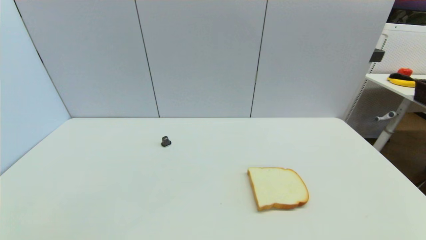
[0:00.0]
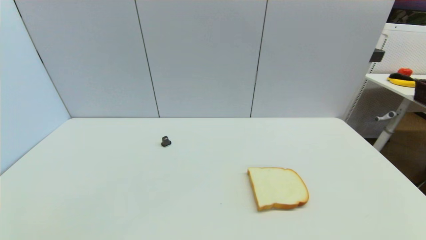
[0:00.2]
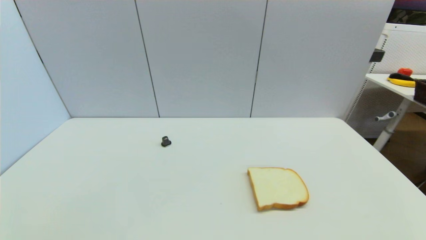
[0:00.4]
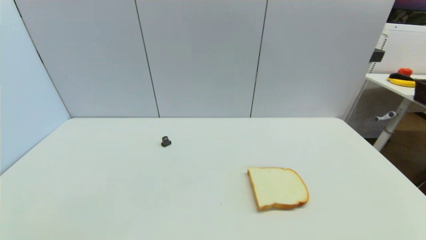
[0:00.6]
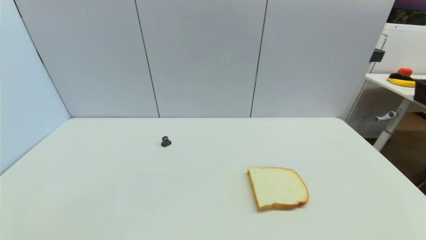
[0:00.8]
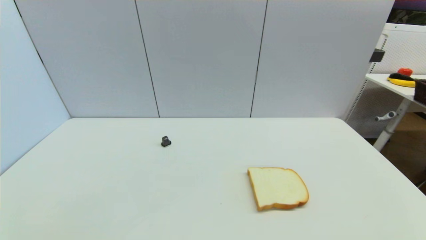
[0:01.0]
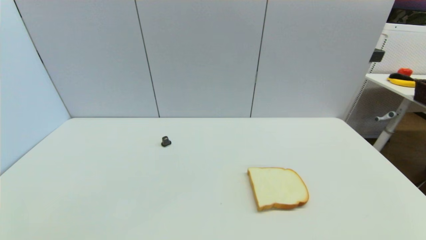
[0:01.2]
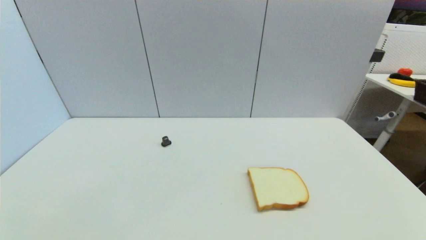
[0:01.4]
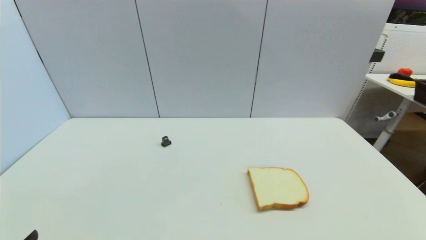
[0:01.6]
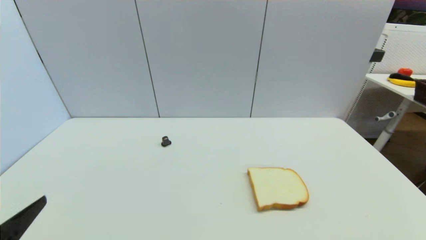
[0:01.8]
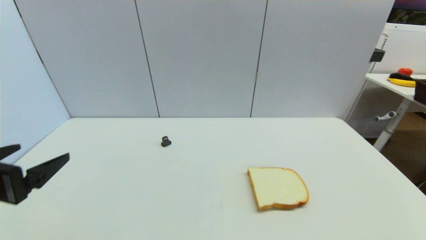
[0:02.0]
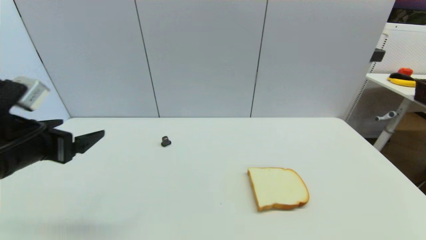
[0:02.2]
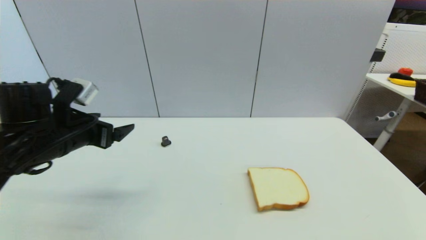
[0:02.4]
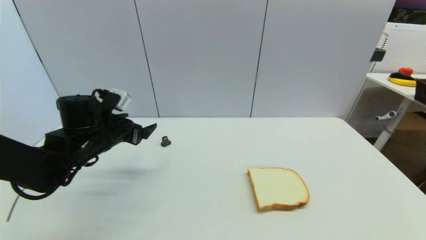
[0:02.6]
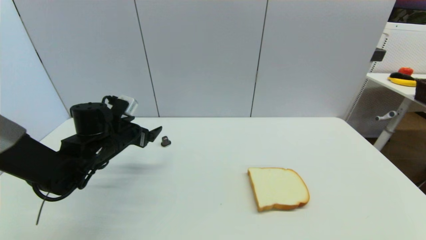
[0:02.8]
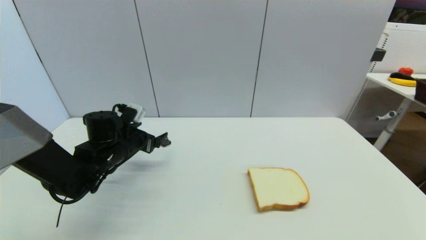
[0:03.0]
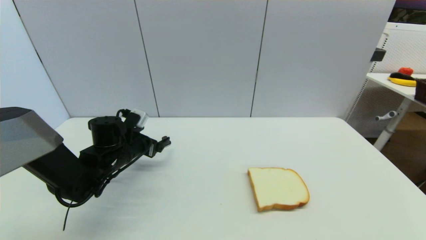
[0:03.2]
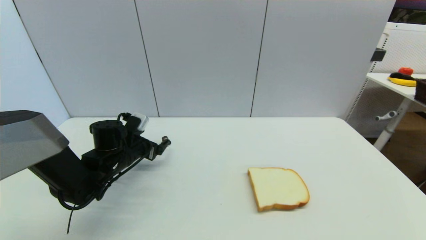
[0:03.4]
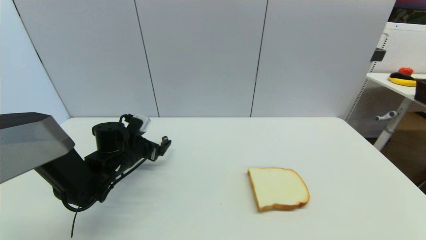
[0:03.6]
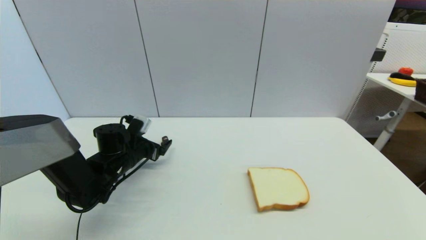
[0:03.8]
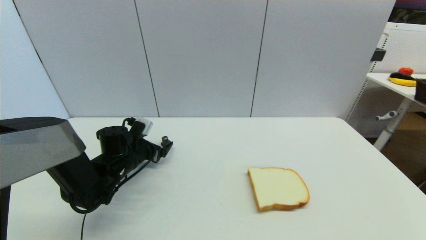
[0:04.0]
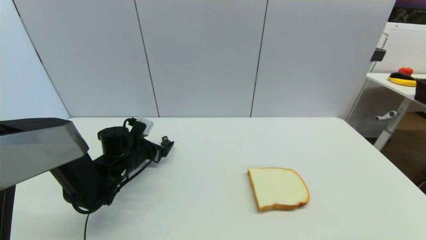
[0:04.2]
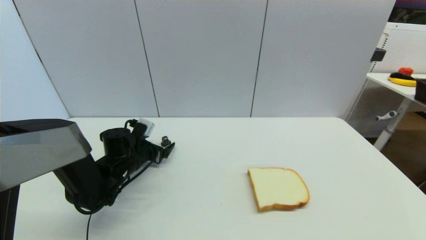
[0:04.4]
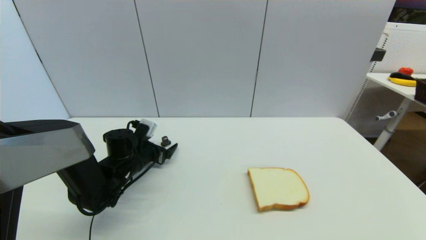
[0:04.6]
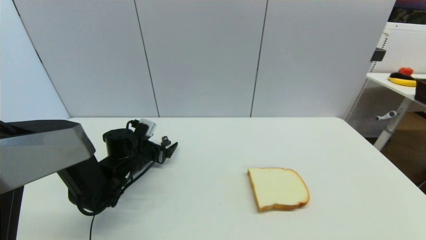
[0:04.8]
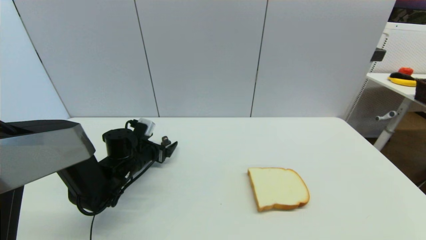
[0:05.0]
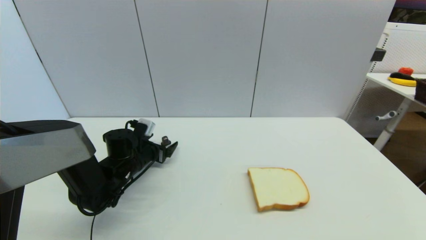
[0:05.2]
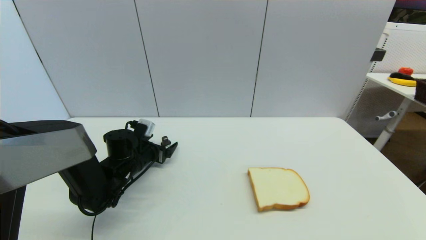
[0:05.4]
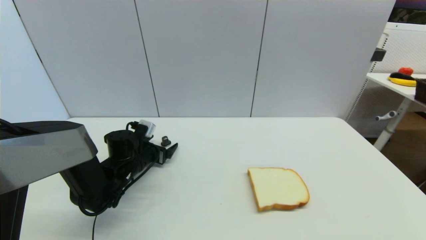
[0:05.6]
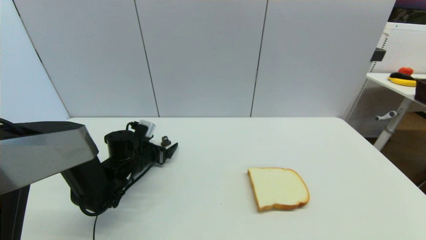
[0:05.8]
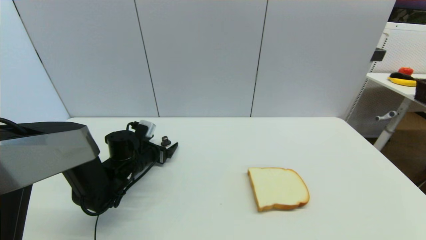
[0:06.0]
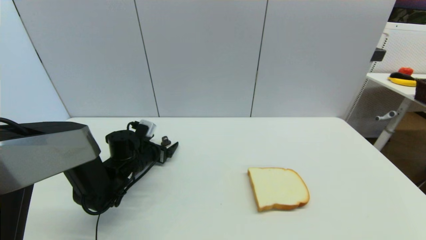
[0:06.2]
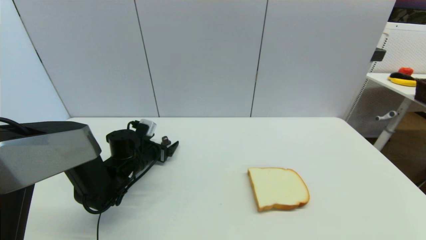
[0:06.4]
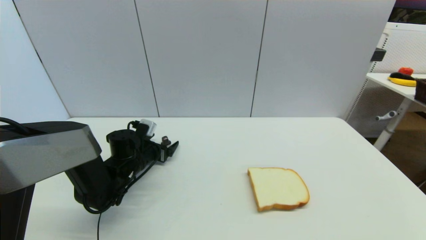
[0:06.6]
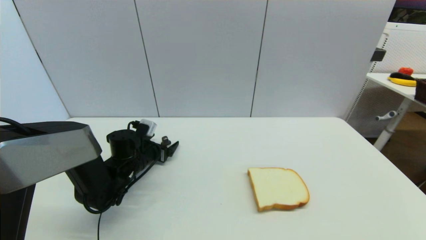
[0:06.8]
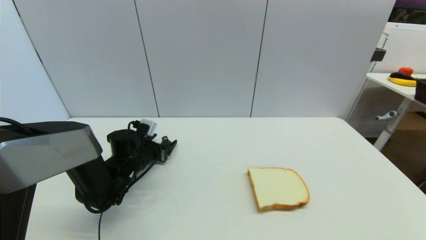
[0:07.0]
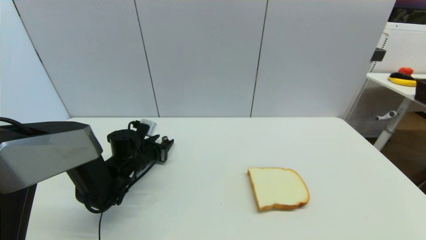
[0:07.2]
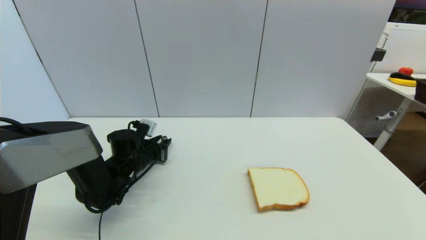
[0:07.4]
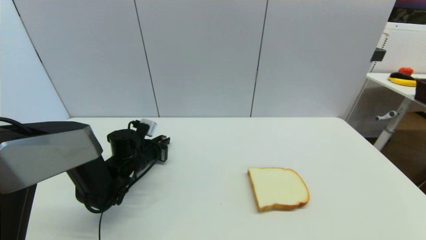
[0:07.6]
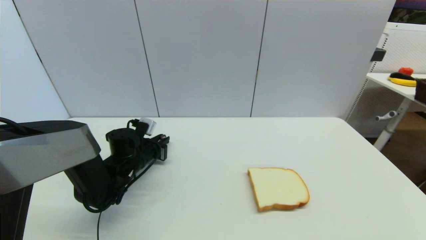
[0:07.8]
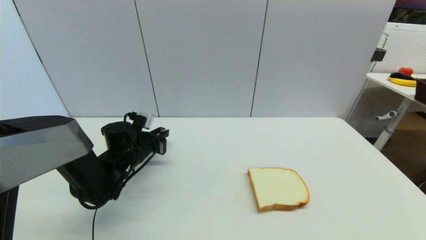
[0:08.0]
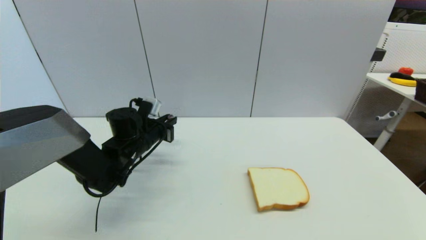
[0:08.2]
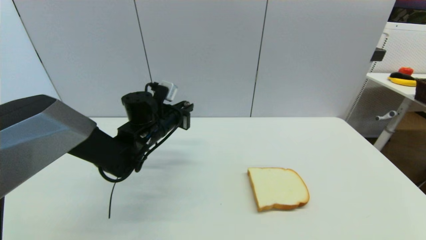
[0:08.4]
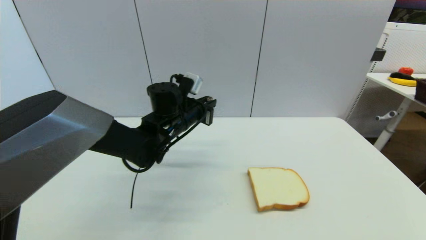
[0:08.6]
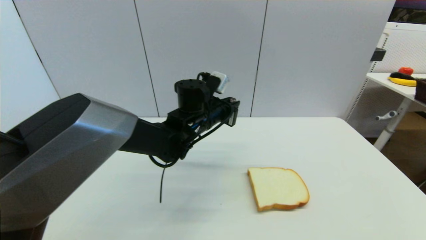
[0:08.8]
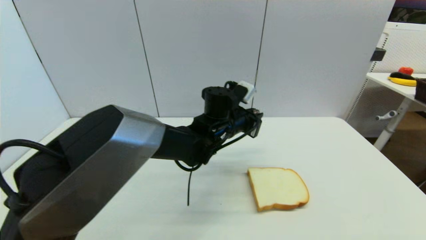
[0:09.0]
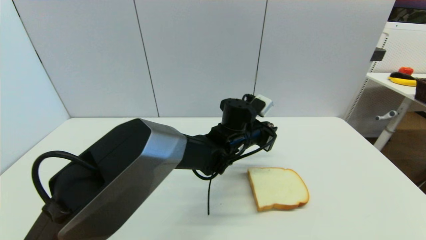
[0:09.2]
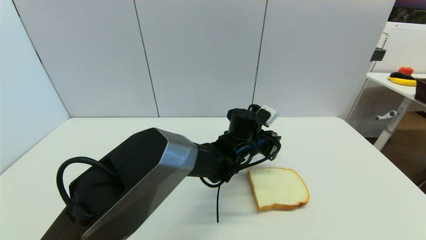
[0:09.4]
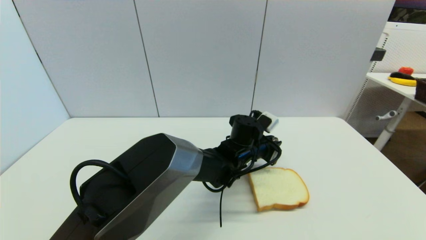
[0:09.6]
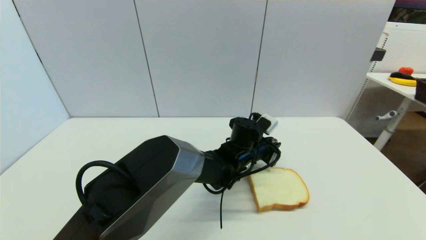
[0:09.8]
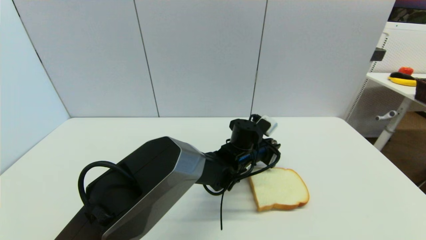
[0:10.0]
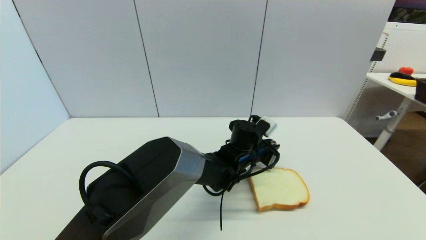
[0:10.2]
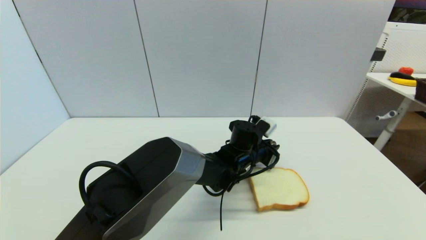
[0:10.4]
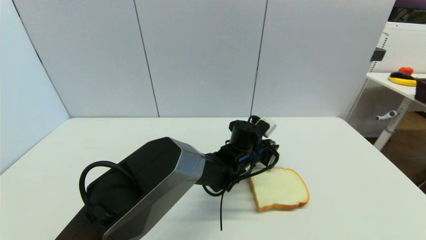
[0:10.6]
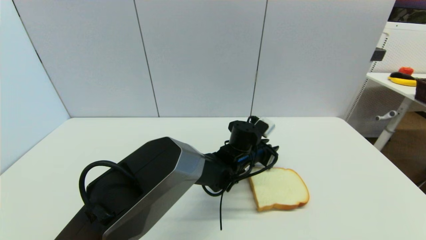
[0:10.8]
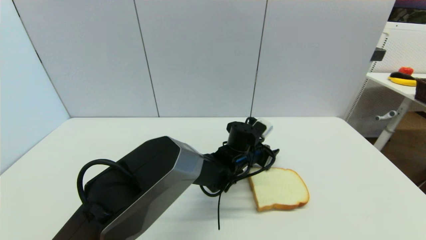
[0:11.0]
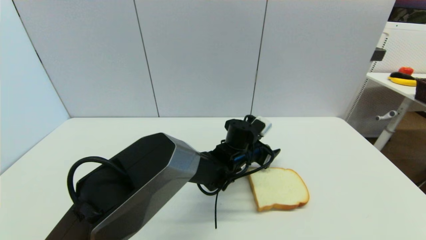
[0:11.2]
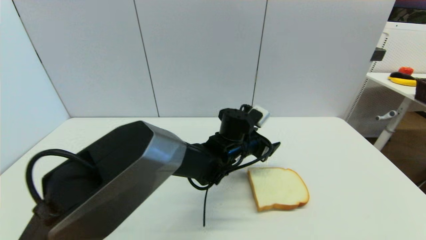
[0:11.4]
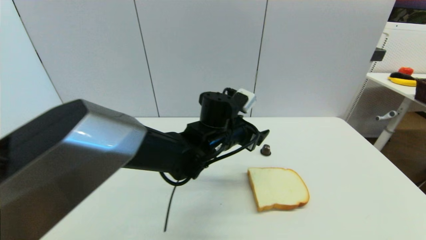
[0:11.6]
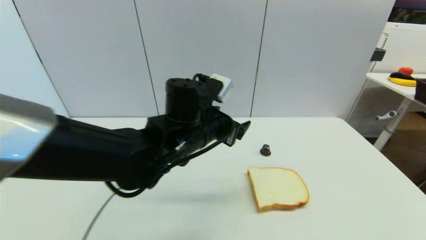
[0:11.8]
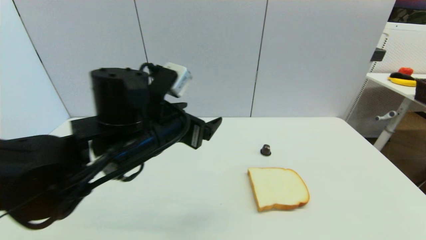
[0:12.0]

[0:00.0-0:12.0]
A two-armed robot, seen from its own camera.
Step, 0:01.6 to 0:07.6: Grasp the coffee capsule with left gripper.
Step, 0:07.8 to 0:11.0: Place the coffee capsule on the table with left gripper.
0:01.6 to 0:03.0: The left gripper shifts some 30 cm forward.
0:03.0 to 0:04.4: The left gripper ends up roughly 5 cm from where it was.
0:04.4 to 0:06.0: Both grippers stay put.
0:06.0 to 0:07.6: The left gripper closes its fingers.
0:07.6 to 0:09.0: The left gripper is displaced to the right and upward by some 25 cm.
0:09.0 to 0:10.4: The left gripper goes some 10 cm downward.
0:10.4 to 0:12.0: The left gripper moves to the left, upward and backward, approximately 30 cm, and opens up.

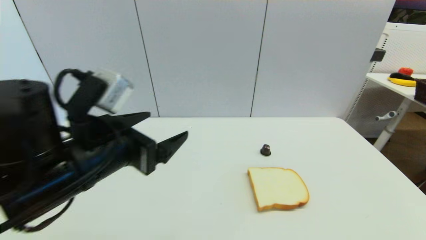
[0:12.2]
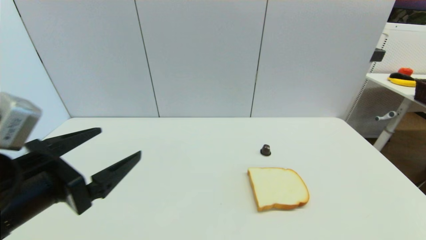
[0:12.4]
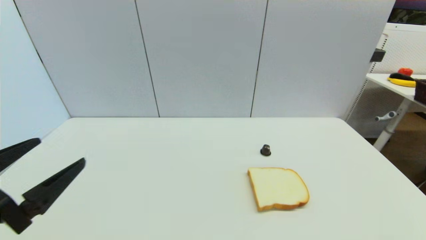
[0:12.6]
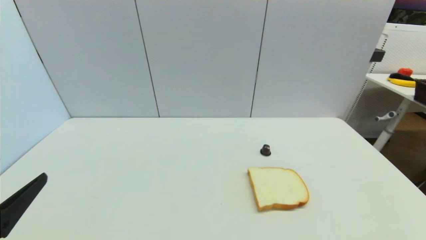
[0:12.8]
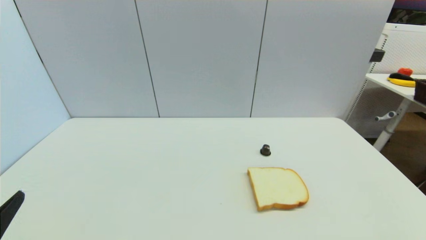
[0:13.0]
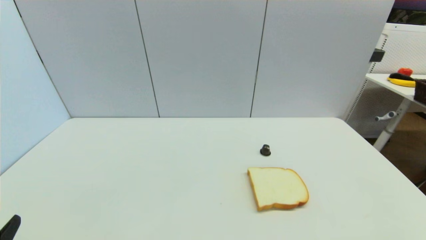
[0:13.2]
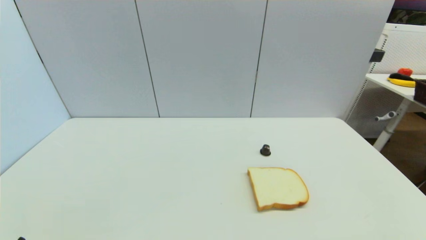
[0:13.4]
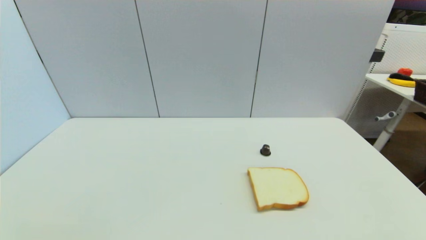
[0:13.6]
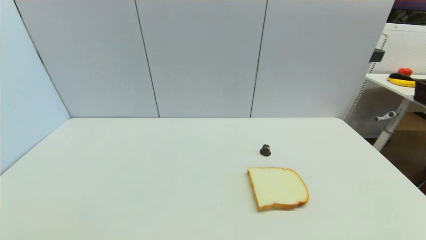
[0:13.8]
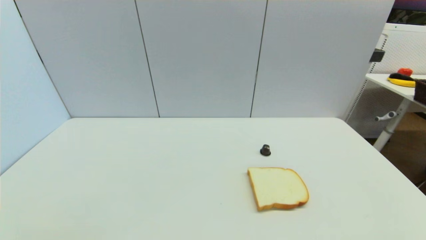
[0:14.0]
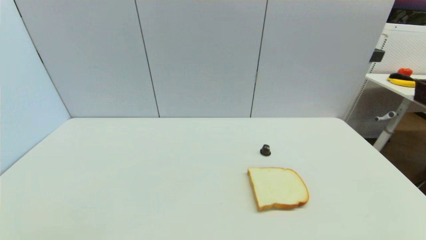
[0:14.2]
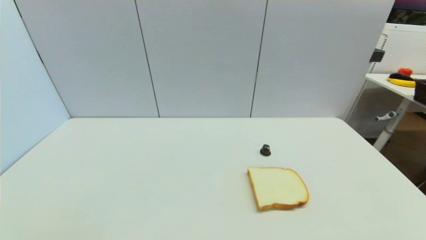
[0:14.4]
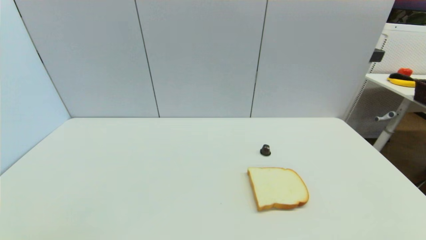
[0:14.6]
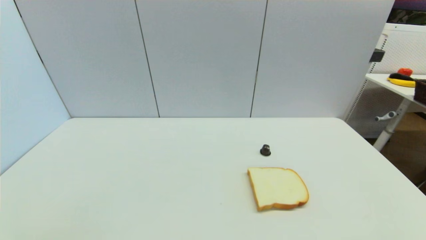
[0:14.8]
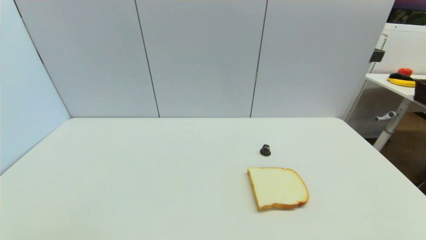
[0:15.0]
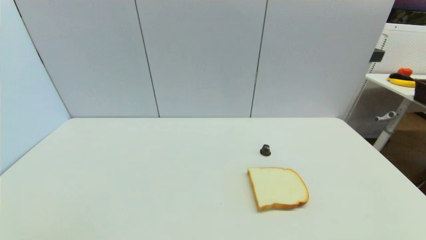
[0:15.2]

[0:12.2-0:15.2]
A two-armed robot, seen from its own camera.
0:12.2 to 0:13.8: The left gripper is displaced backward, downward and to the left by approximately 25 cm.
0:13.8 to 0:15.2: Both grippers stay about where they are.

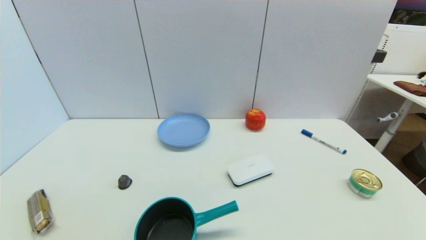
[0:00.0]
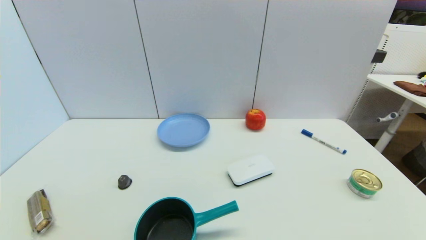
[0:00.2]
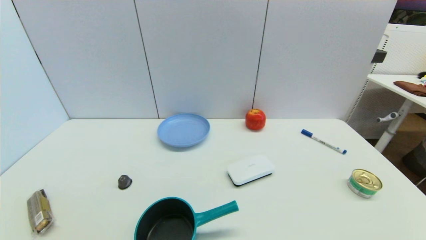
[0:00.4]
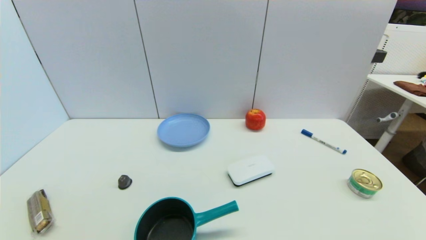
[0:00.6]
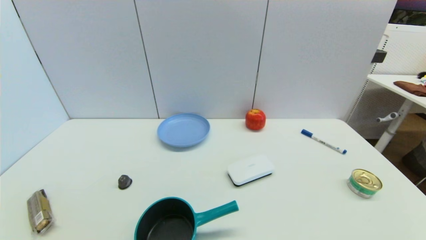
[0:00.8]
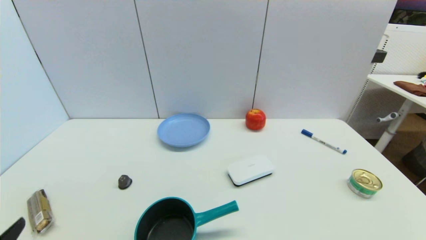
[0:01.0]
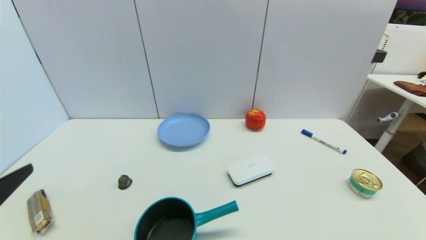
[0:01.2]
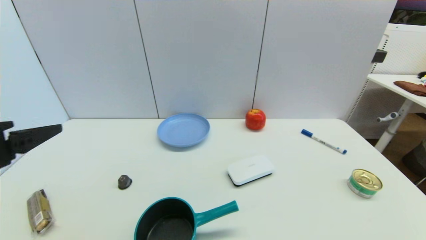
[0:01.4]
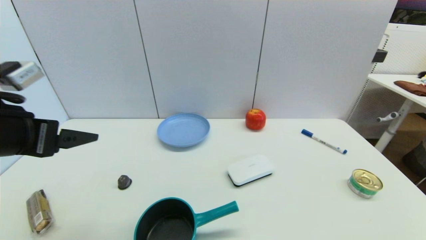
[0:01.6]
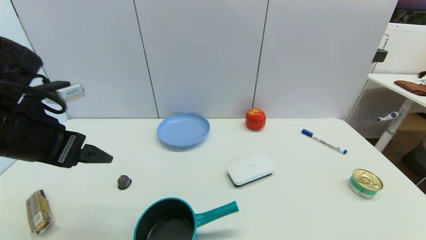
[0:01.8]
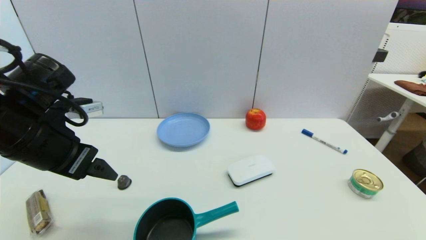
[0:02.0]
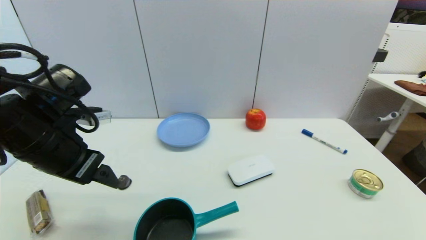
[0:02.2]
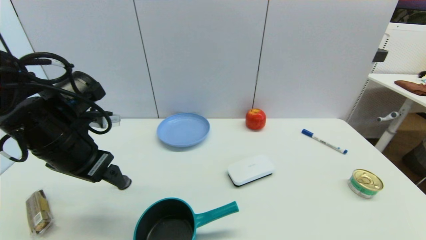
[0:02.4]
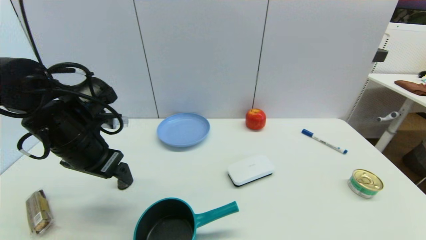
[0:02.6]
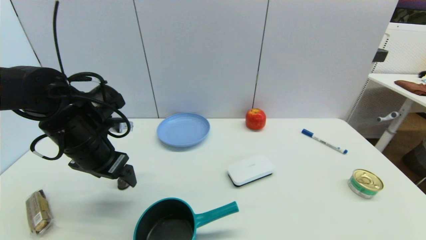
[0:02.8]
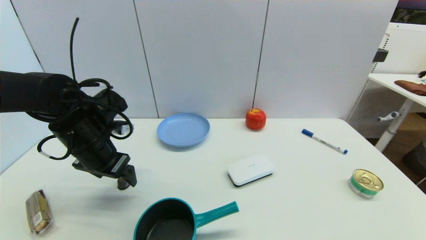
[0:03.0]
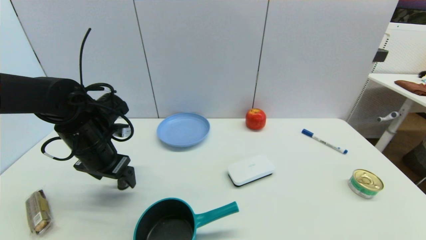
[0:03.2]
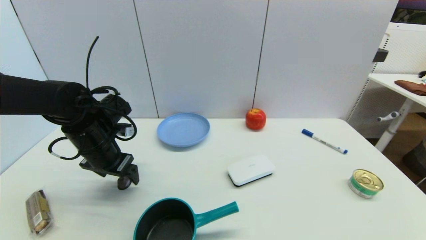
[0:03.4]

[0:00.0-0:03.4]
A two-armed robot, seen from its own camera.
0:00.0 to 0:01.6: The left gripper travels upward and forward by roughly 30 cm.
0:01.6 to 0:03.4: The left gripper goes approximately 20 cm forward and downward.
